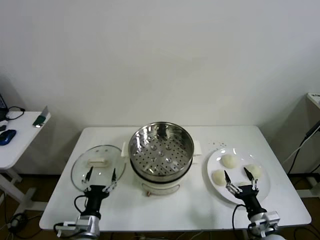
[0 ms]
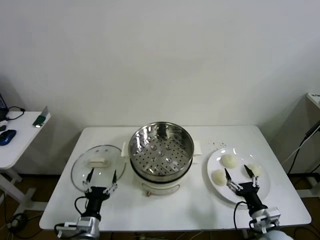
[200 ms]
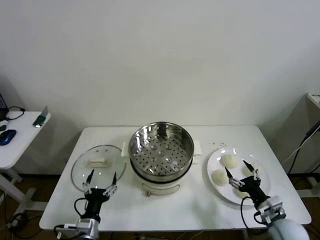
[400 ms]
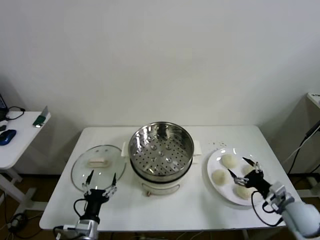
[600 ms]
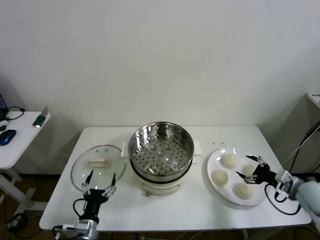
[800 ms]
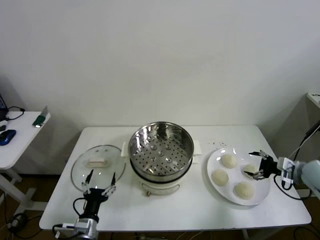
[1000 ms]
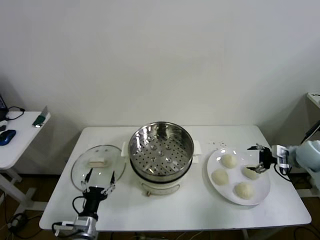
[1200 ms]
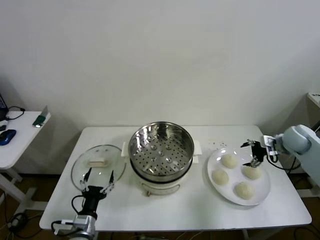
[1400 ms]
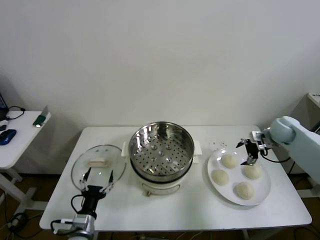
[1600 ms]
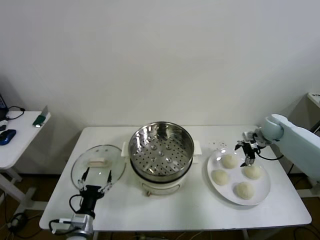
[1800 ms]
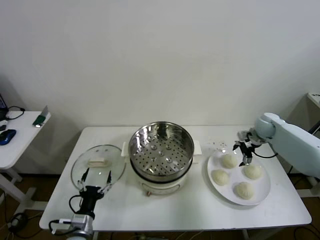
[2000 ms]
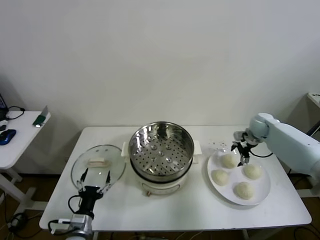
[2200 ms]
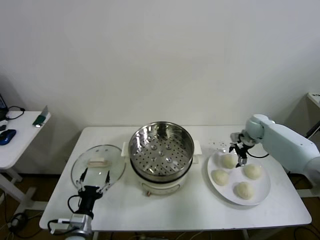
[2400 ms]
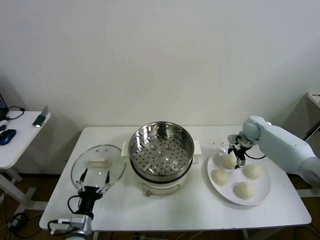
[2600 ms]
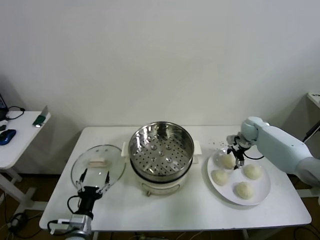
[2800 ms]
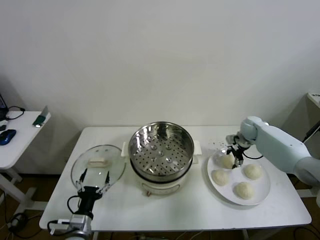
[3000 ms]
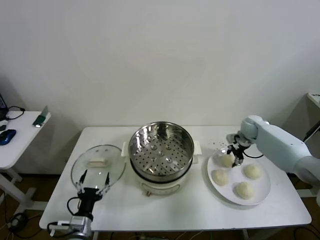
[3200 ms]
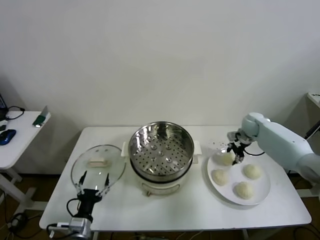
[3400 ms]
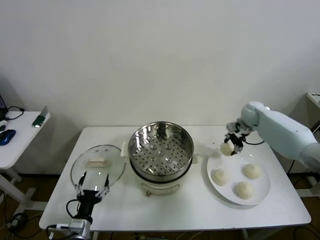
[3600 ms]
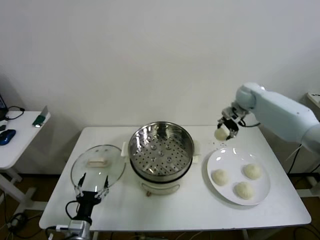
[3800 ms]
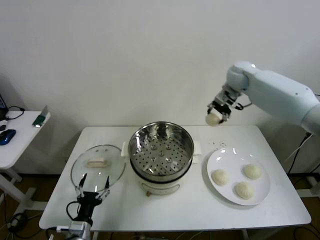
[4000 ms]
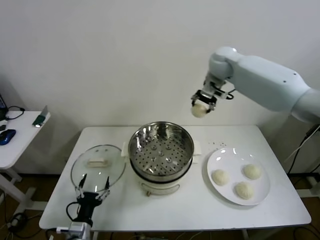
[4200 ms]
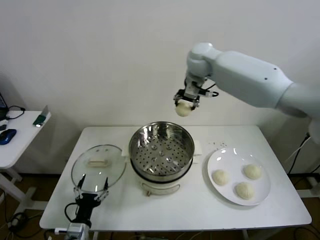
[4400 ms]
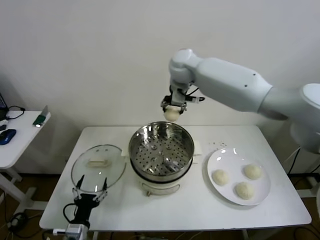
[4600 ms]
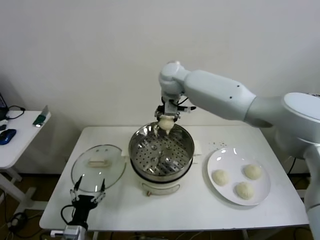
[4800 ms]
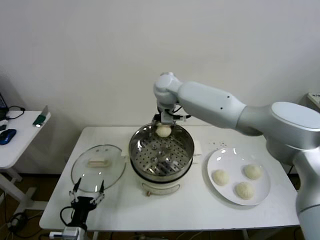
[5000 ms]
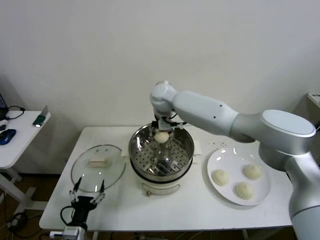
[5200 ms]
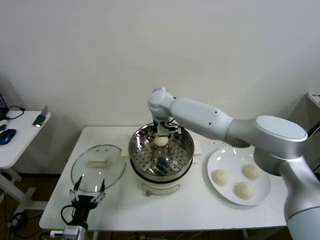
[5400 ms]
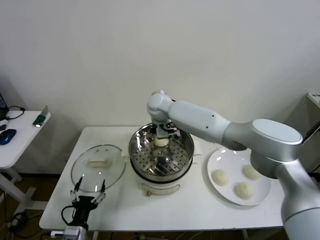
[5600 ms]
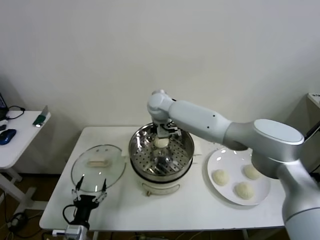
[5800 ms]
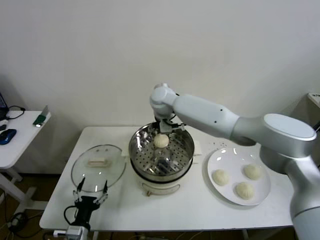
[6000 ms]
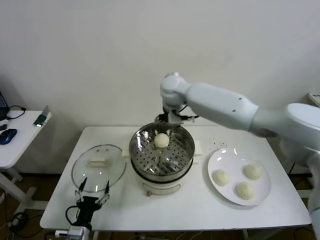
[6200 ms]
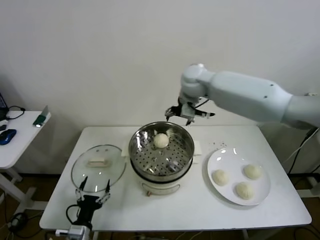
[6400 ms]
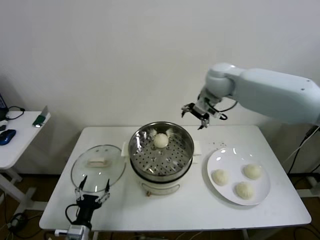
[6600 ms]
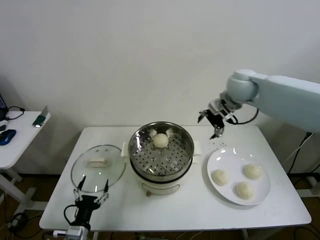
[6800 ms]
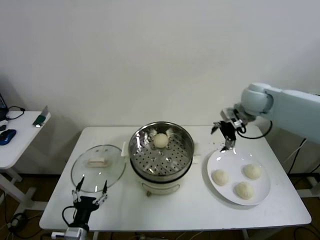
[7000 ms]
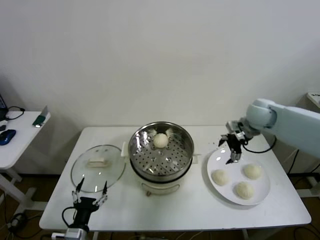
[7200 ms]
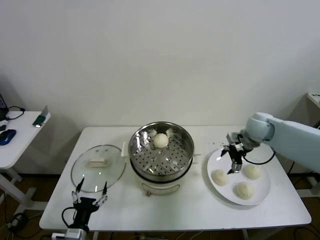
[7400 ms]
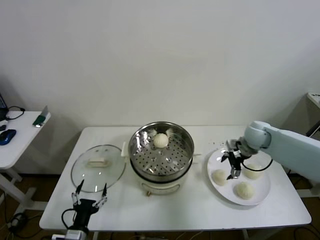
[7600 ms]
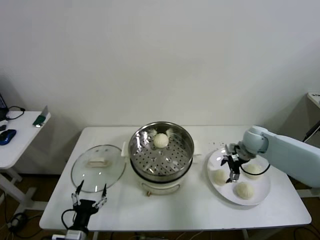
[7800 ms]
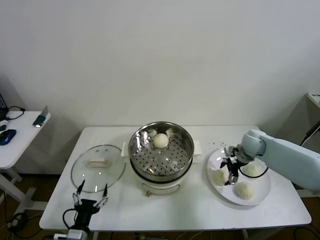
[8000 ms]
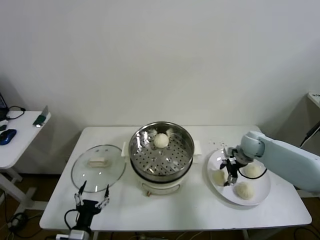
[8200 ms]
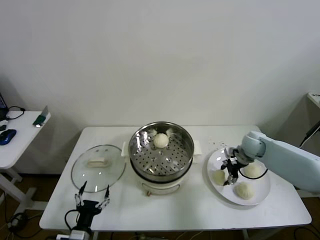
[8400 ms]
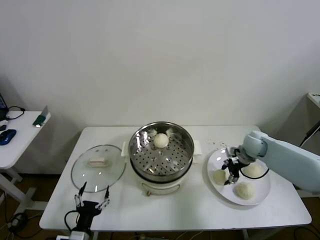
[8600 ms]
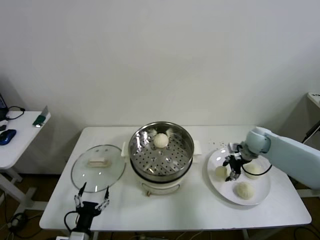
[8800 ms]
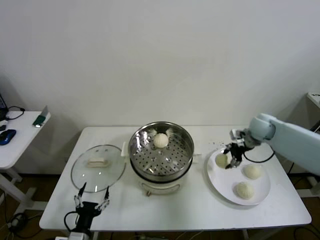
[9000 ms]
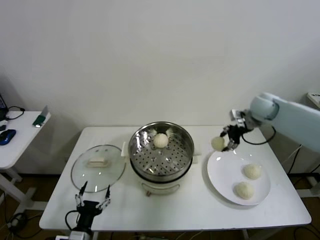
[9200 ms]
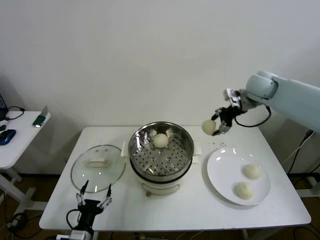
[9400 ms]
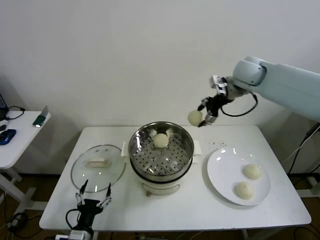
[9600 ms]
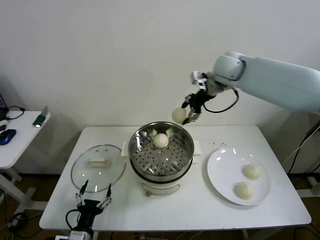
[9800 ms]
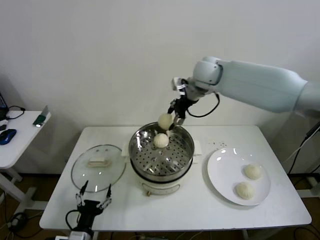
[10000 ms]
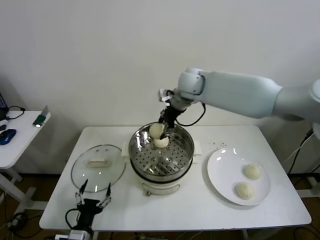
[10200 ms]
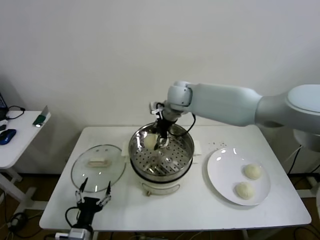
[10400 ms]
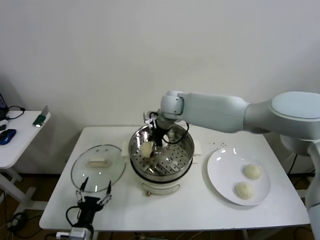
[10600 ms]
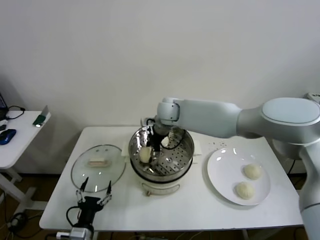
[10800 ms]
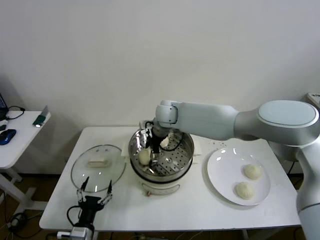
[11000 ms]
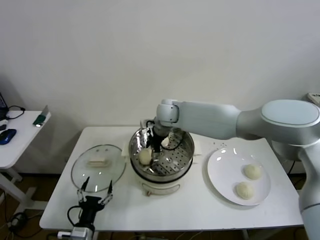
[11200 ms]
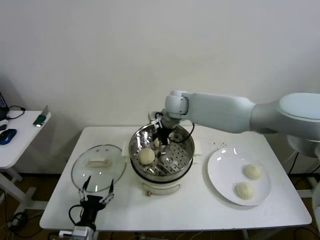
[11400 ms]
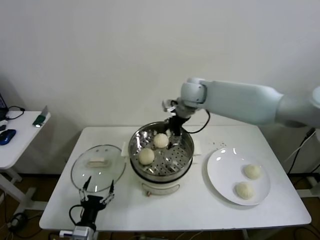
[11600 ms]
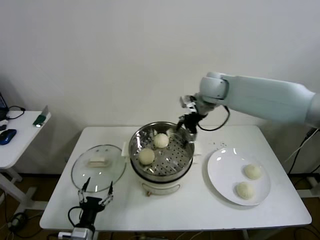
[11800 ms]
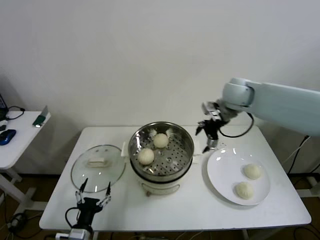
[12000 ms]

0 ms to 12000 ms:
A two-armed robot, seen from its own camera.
Step, 0 ms to 3000 ms: Grasp the baozi in the plate with right gripper.
Step, 3200 ms to 6000 ms: Place the baozi on the steamer with right gripper.
Step, 6200 ms to 8600 ms: Grasp the baozi in the plate with right gripper.
Step, 8800 ms to 11200 ms: Place the baozi on the steamer with right gripper.
1600 ms to 3000 ms: The right gripper moves forward, to the left and downward, about 10 cm, and closes its fingers.
3000 ms to 4400 ms: The right gripper is displaced to the left and upward by approximately 40 cm.
4400 ms to 6000 ms: The right gripper moves downward and to the left, about 10 cm, and opens its fingers.
6000 ms to 7600 ms: The right gripper heads to the right and downward, covering some 35 cm.
7600 ms to 9000 ms: The right gripper is displaced upward by approximately 5 cm, and closes its fingers.
9000 ms to 10400 ms: The right gripper shifts roughly 30 cm to the left.
10400 ms to 12000 ms: The right gripper goes some 20 cm to the right, and opens up.

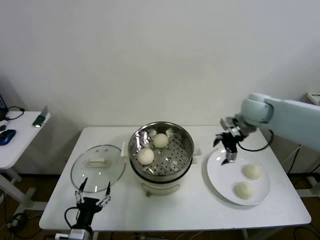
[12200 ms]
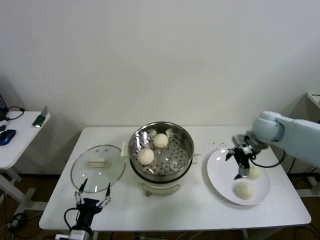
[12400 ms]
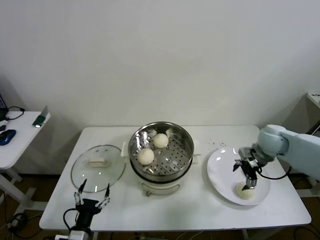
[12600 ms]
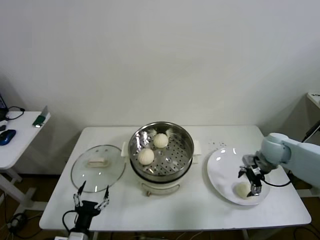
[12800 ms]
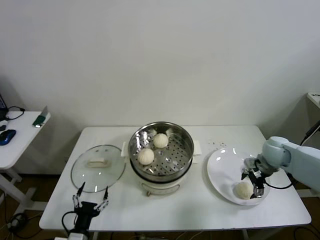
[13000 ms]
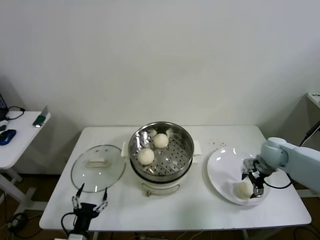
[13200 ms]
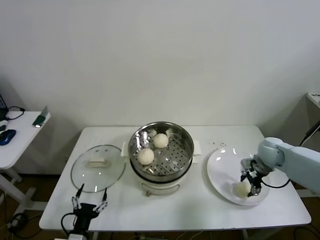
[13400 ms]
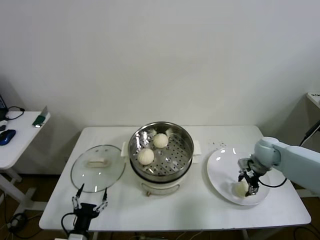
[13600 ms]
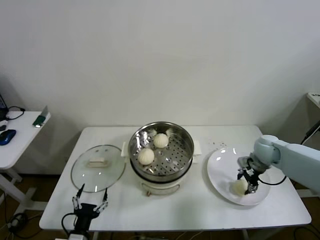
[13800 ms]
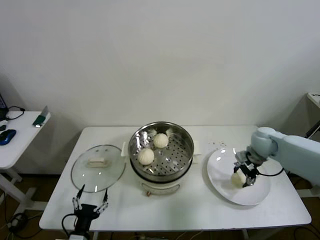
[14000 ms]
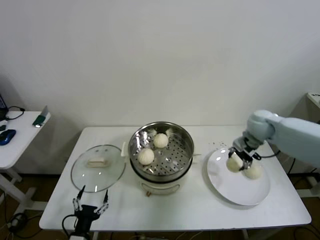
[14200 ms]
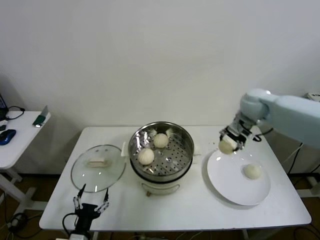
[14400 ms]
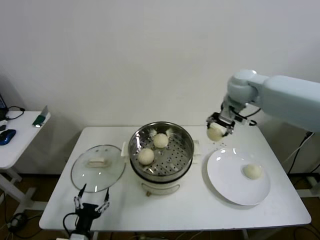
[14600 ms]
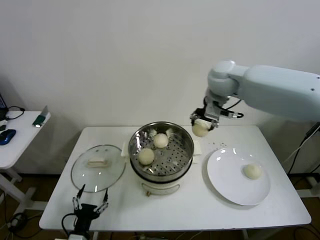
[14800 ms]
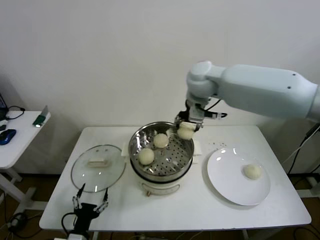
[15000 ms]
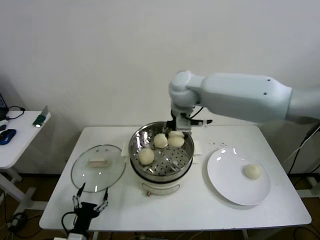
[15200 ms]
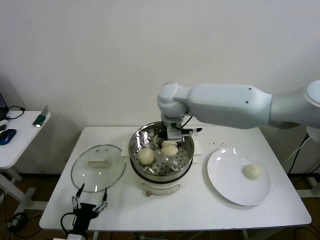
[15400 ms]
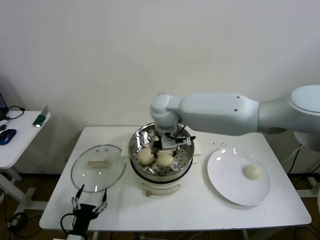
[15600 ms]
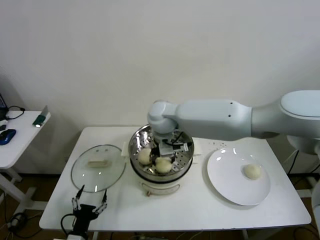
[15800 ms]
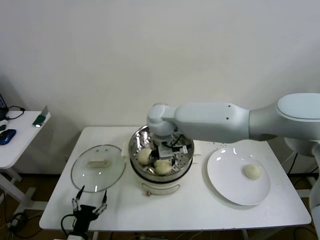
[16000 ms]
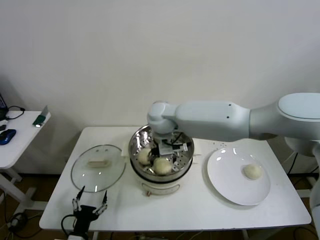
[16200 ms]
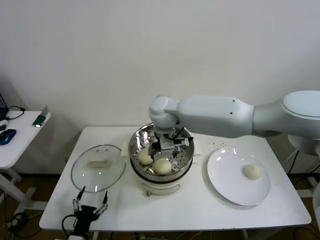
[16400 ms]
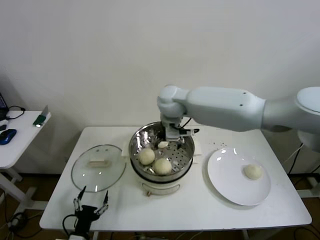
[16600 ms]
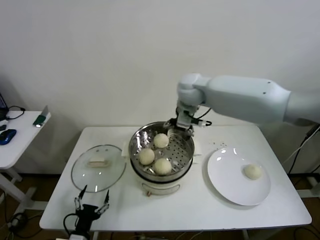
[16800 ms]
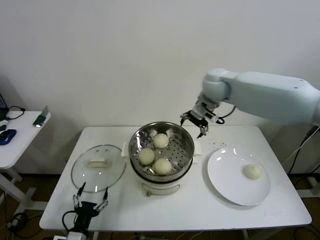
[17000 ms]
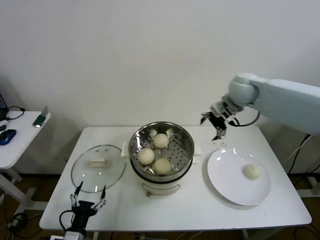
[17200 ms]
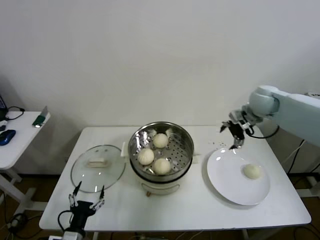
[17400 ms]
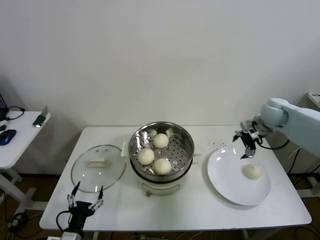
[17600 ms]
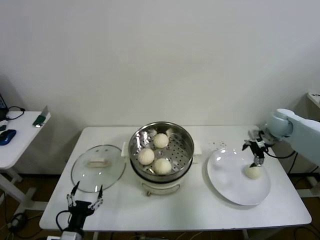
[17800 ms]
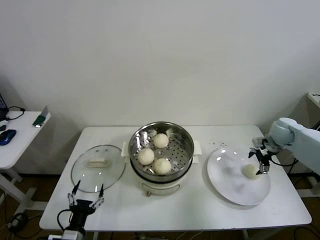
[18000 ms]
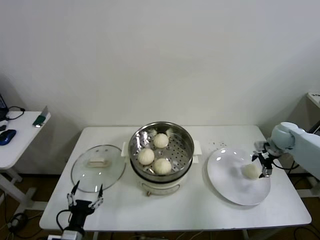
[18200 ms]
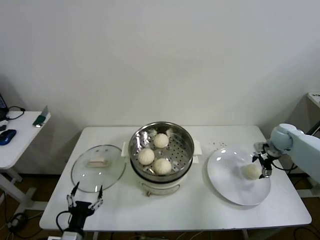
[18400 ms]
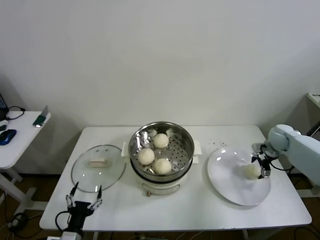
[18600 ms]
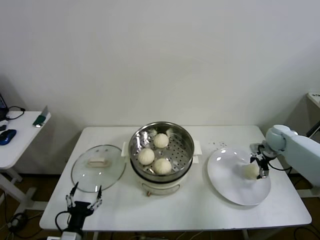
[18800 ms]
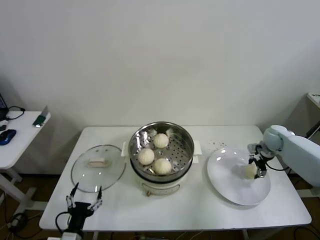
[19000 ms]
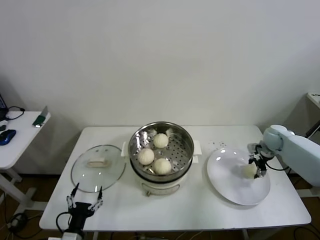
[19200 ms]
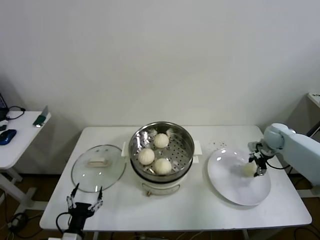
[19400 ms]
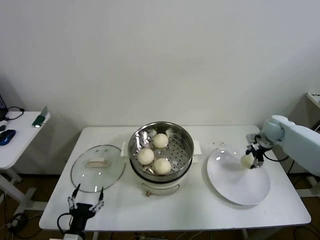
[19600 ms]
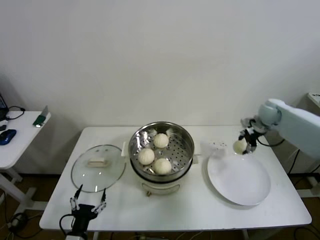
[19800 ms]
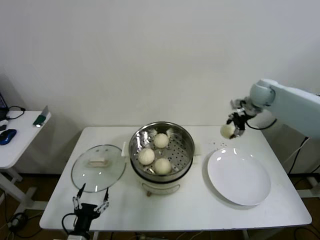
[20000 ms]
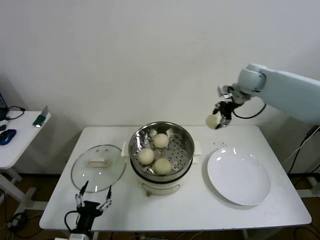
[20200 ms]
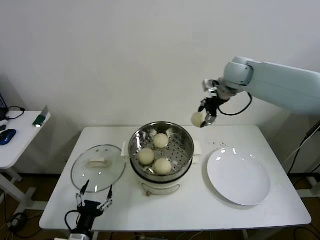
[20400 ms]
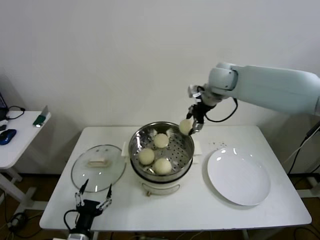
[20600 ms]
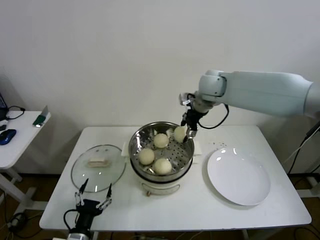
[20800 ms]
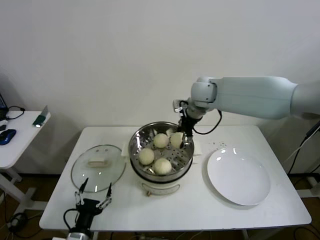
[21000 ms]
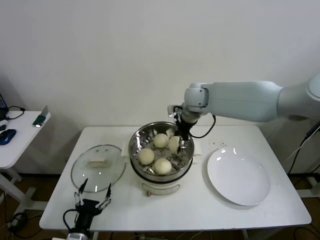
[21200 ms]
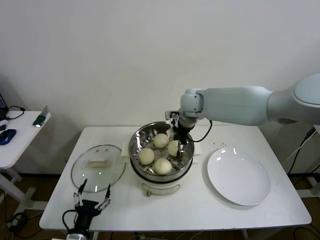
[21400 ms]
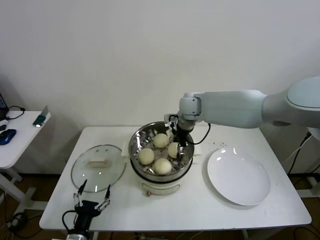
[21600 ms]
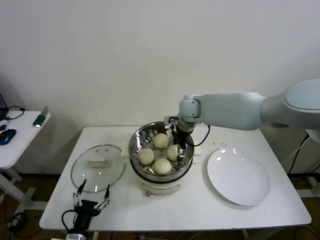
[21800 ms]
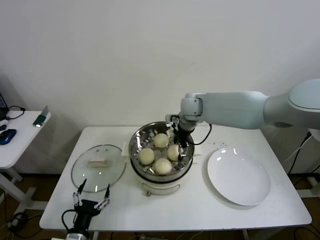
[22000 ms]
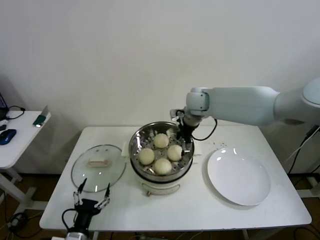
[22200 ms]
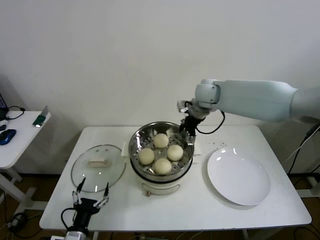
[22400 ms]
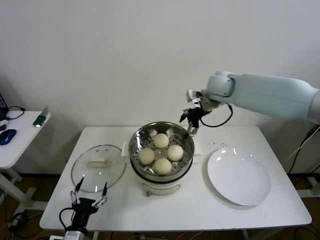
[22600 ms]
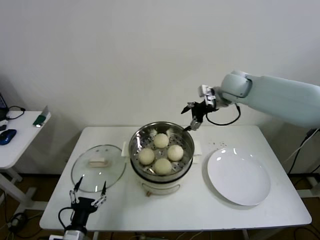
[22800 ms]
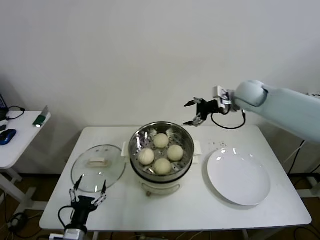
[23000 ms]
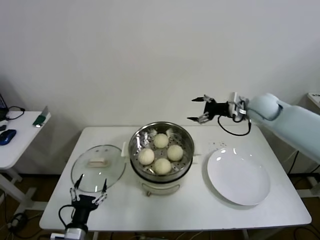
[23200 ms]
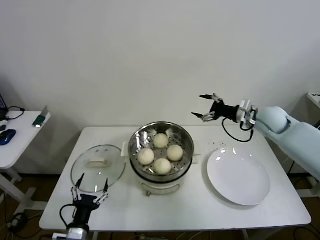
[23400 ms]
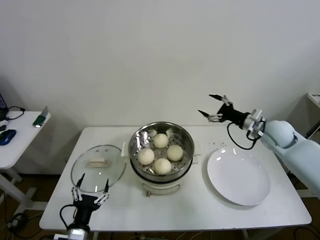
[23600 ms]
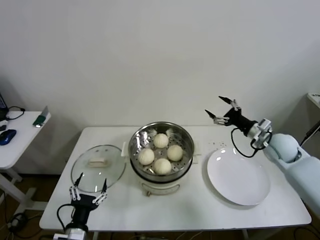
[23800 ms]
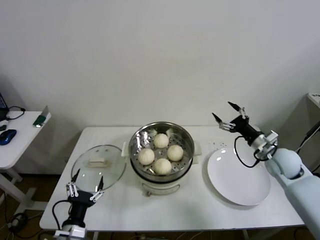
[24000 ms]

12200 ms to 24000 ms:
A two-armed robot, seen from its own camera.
Step, 12200 ms to 13600 ms: Grasp the baozi in the plate with right gripper.
Step, 13800 ms to 16200 ms: Place the baozi on the steamer with right gripper.
Step, 16400 ms to 19200 ms: Grasp the baozi in the plate with right gripper.
Step, 19400 ms to 22200 ms: Place the baozi on the steamer with right gripper.
12200 ms to 13600 ms: The right gripper is displaced downward and to the right by approximately 15 cm, and closes its fingers.
13600 ms to 15200 ms: The right gripper travels to the left and upward by some 40 cm.
15200 ms to 16600 ms: The right gripper opens its fingers.
16600 ms to 18200 ms: The right gripper moves to the right and downward, about 50 cm.
18200 ms to 19600 ms: The right gripper closes up.
19600 ms to 21000 ms: The right gripper moves to the left and upward, roughly 35 cm.
21000 ms to 22600 ms: The right gripper moves to the right, about 5 cm, and opens.
22600 ms to 24000 ms: The right gripper is displaced to the right, downward and backward by approximately 30 cm.
